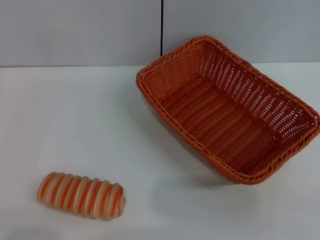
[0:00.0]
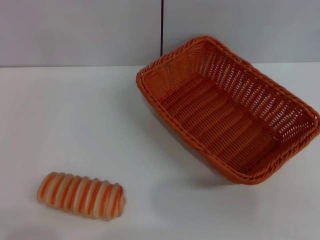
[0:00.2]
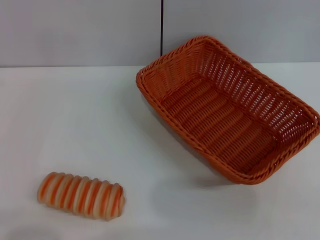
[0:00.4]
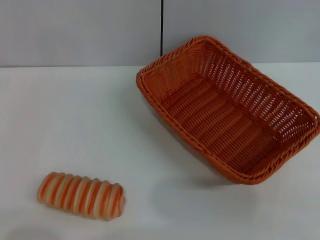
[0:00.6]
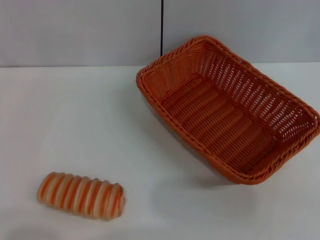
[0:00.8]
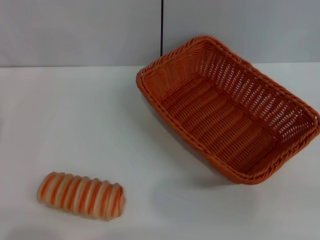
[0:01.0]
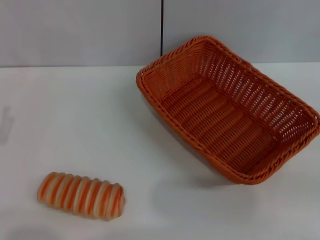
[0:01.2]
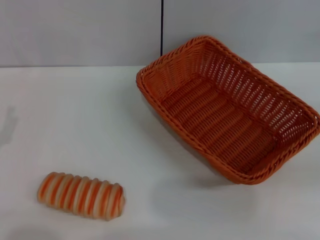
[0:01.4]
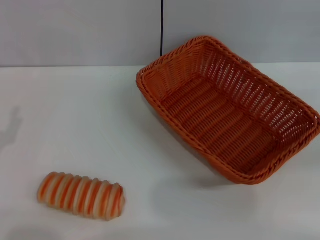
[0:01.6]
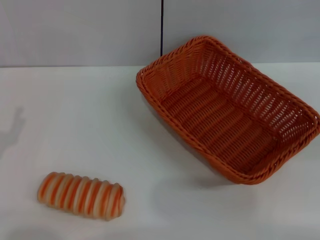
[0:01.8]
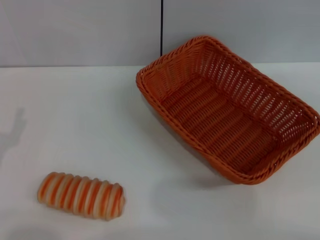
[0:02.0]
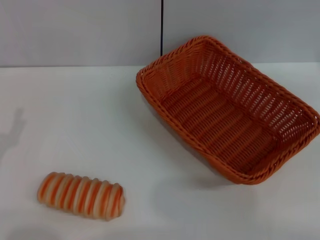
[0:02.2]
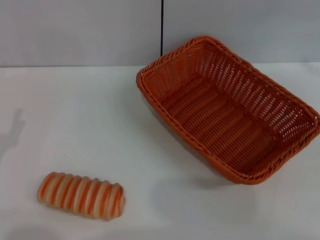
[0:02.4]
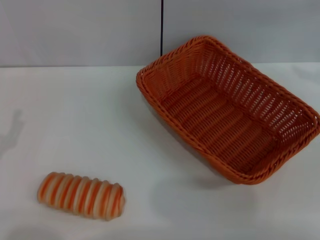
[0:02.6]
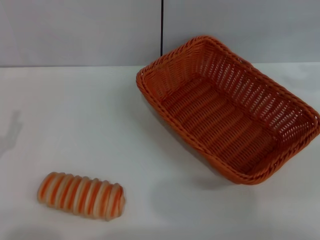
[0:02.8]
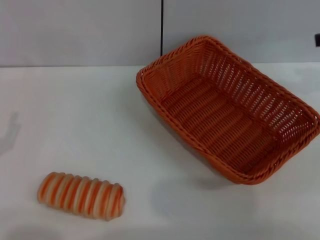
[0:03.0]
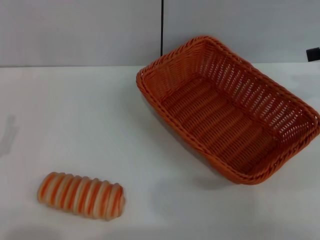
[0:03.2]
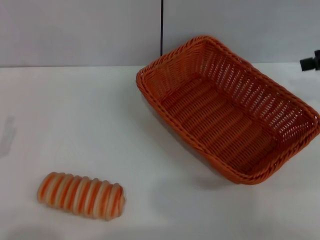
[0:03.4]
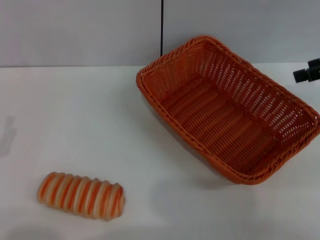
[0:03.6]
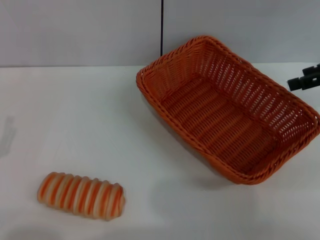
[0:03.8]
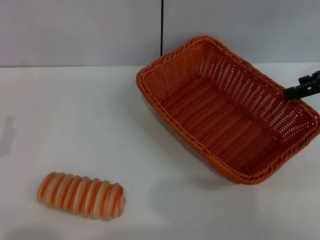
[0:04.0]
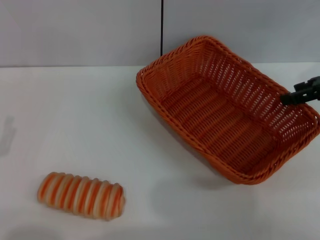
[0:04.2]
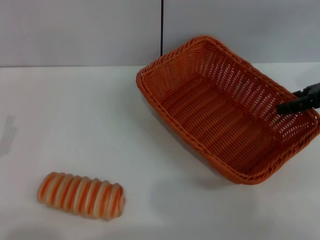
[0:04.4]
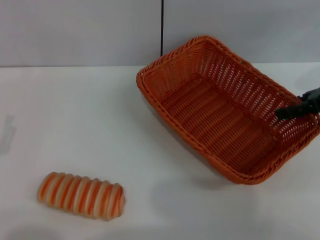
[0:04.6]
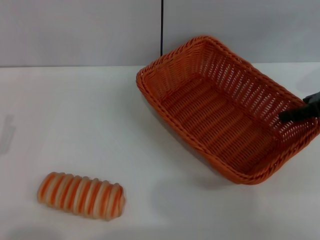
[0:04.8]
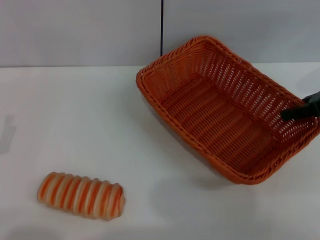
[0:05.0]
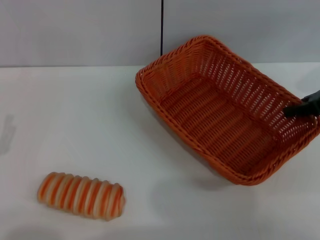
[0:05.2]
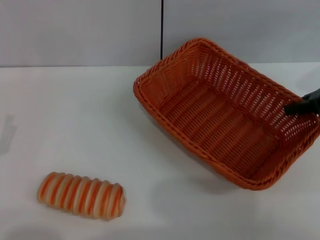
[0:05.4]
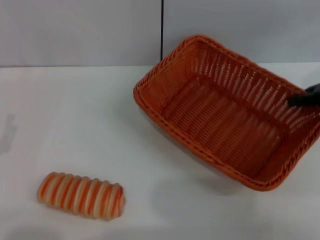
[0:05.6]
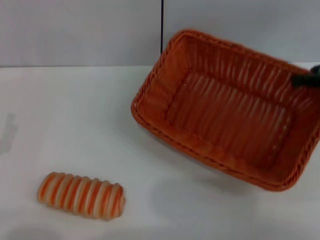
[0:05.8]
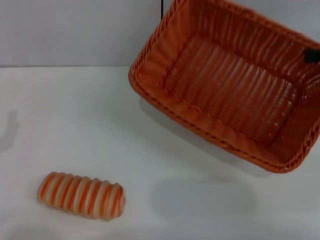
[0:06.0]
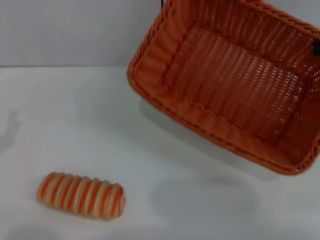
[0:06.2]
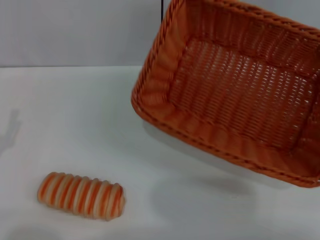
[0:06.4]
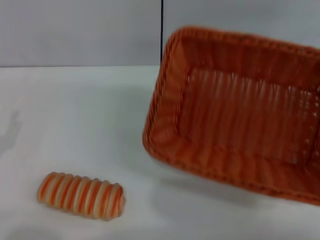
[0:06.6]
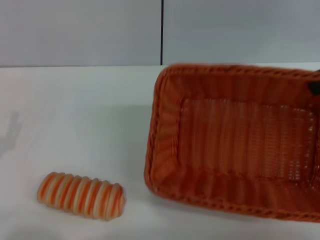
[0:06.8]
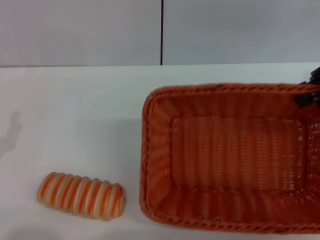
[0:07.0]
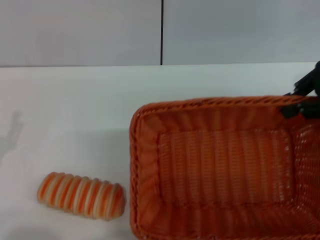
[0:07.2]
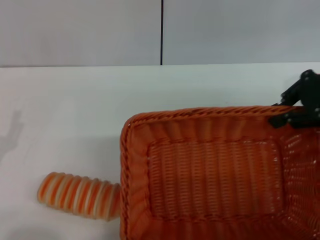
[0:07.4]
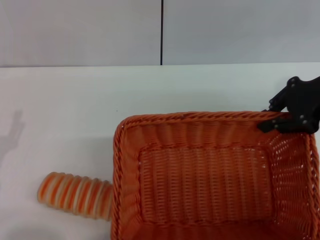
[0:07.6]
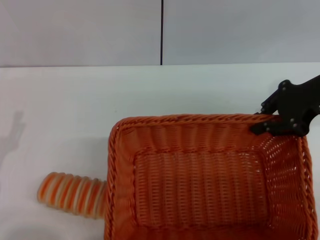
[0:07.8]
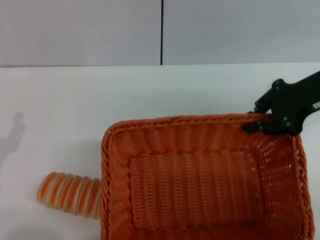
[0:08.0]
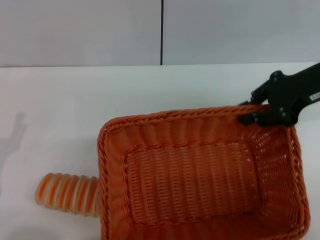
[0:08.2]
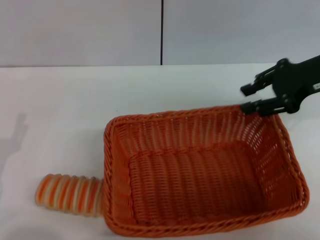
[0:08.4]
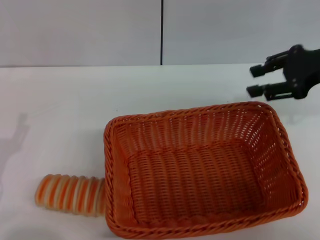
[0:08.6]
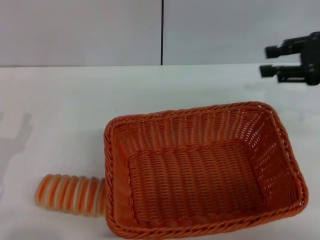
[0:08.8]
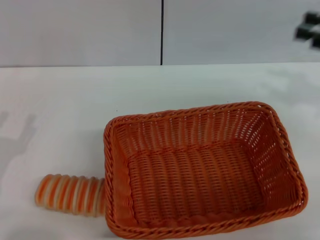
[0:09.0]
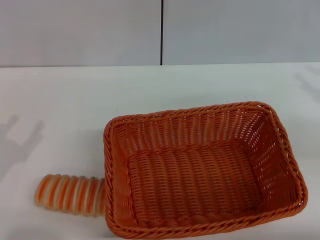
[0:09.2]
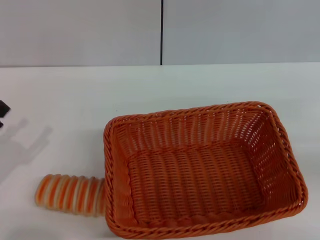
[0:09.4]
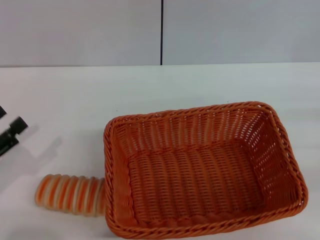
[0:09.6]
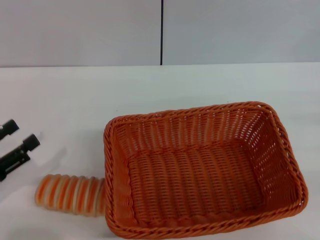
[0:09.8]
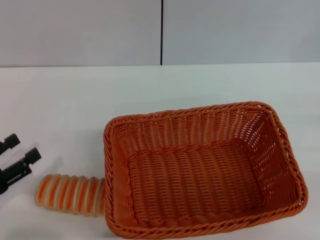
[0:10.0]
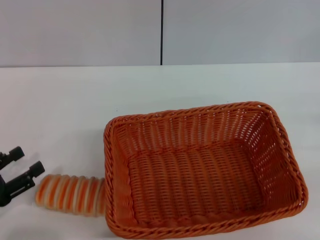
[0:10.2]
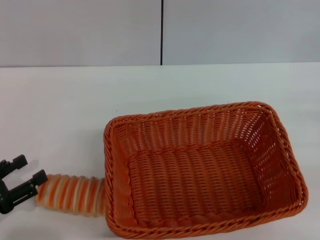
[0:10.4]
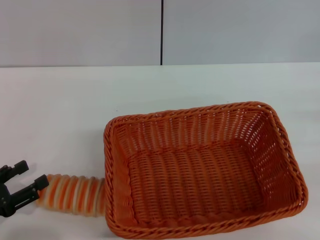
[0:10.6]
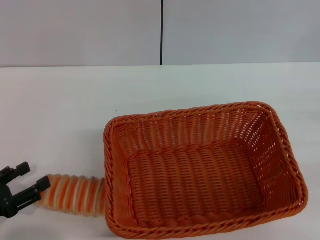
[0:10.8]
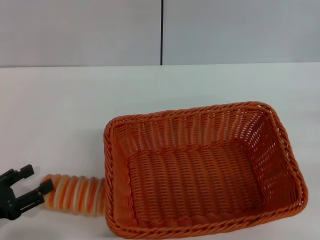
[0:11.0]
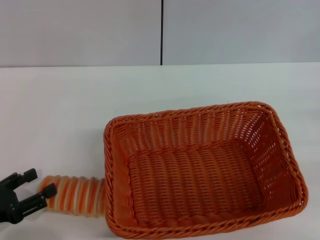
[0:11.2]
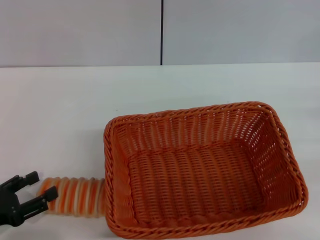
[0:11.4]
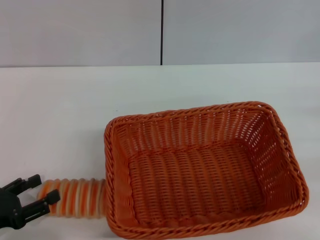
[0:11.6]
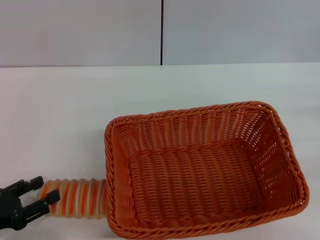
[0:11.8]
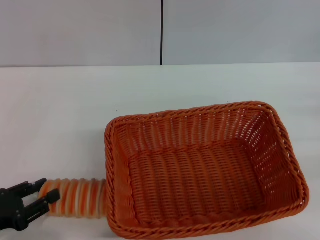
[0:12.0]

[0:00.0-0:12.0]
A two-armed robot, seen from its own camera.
Step, 0:00.0 to 0:06.4: Pick up the light basket with the right gripper.
Step, 0:06.6 to 0:08.6: Place the light basket in the center of view with the right gripper.
0:01.6 to 0:03.0: The right gripper shifts roughly 15 cm forward and to the left.
0:03.0 to 0:04.4: The right gripper shifts some 10 cm downward.
0:04.4 to 0:06.0: The right gripper goes approximately 5 cm upward, and closes.
0:06.0 to 0:07.6: The right gripper goes some 10 cm to the left.
0:07.6 to 0:09.0: The right gripper shifts some 10 cm to the right, and opens up.
0:09.0 to 0:10.4: The right gripper goes about 15 cm downward, backward and to the right.
0:10.4 to 0:12.0: There are only small adjustments of the grippers.

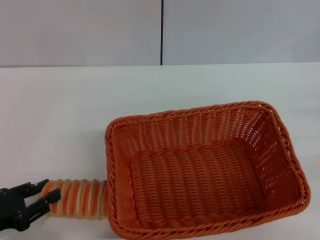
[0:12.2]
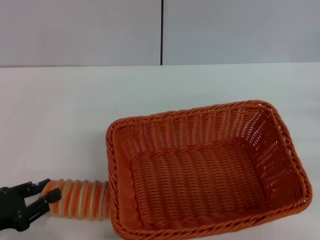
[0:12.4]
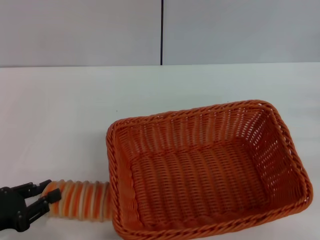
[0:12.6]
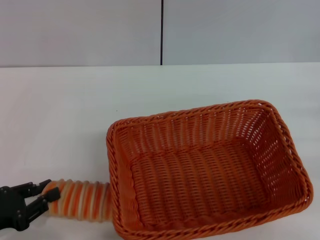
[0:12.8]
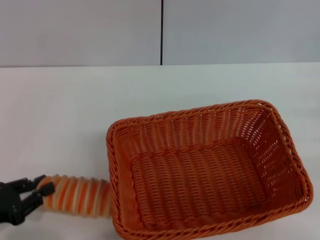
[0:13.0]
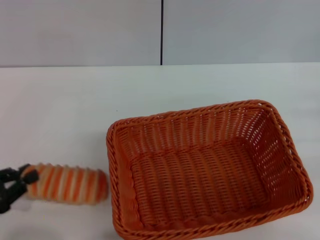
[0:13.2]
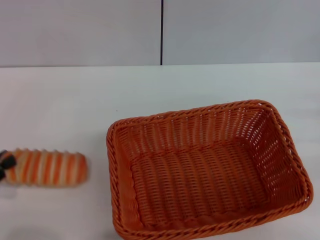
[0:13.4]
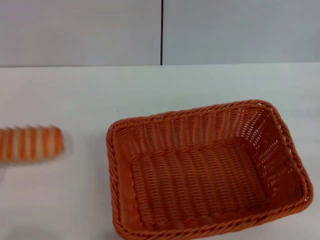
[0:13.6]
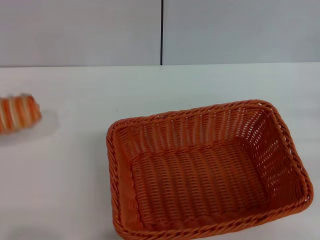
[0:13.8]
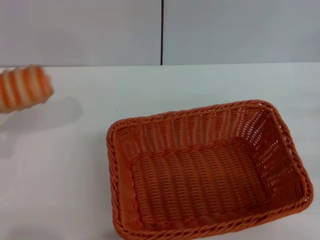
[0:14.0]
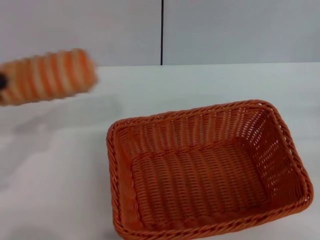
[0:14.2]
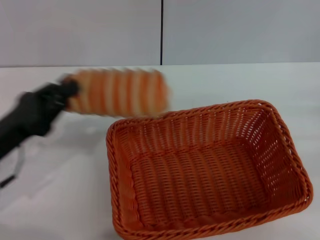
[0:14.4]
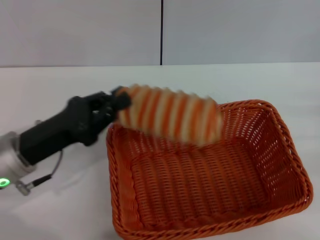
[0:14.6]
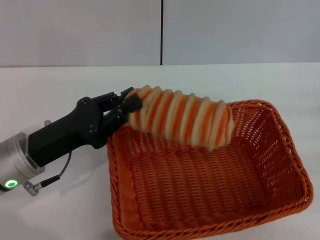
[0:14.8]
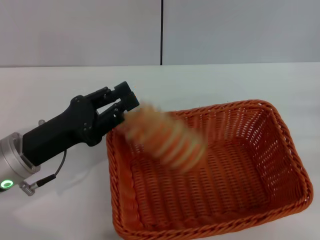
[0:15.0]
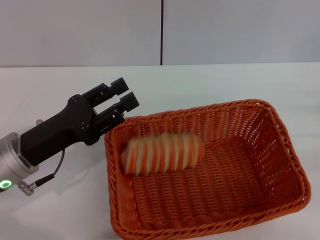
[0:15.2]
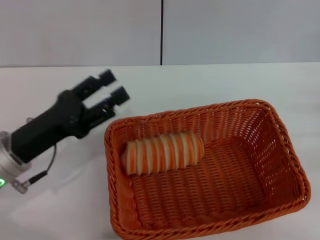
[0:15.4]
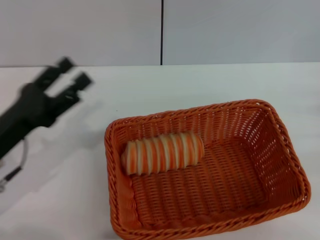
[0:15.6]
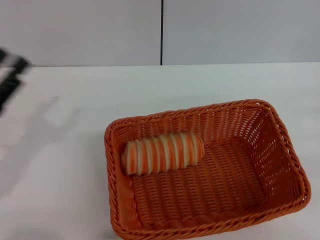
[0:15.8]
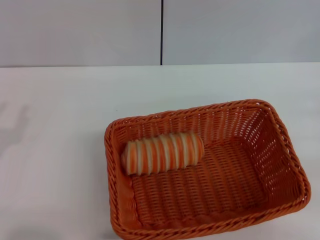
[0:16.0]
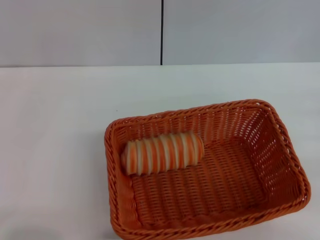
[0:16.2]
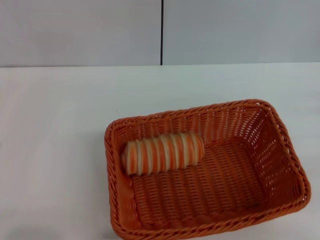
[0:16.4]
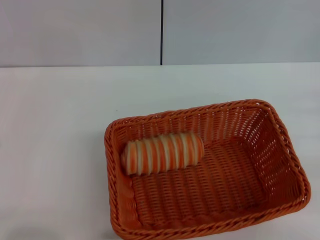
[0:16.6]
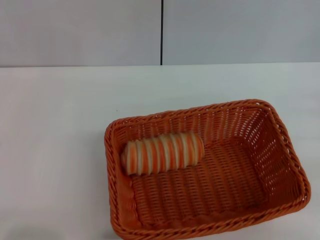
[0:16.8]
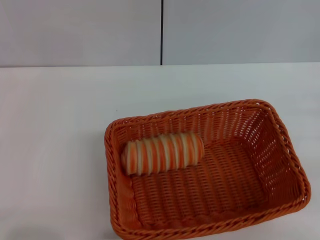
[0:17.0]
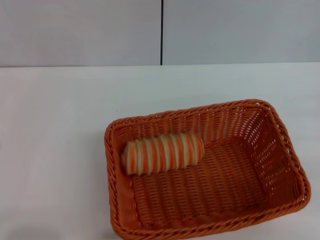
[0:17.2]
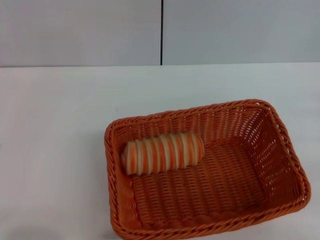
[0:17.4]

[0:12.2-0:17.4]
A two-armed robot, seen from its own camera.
Step, 0:14.2 to 0:15.4: Place the long bread into the light basket with the left gripper.
0:12.2 to 0:14.0: The left gripper shifts roughly 5 cm upward, and closes its fingers.
0:14.0 to 0:15.6: The left gripper shifts roughly 15 cm to the right and forward, and opens up.
0:15.6 to 0:17.4: The left gripper moves backward and to the left, approximately 10 cm, and closes up.

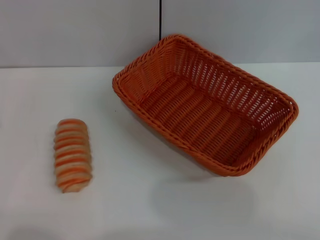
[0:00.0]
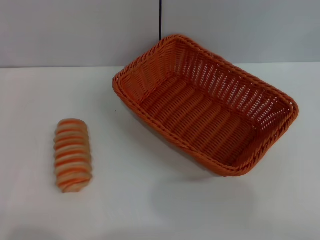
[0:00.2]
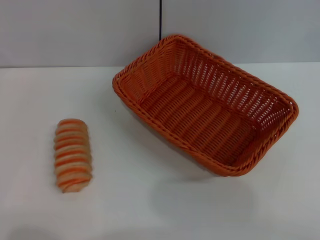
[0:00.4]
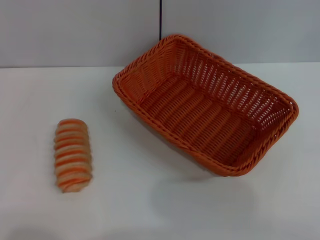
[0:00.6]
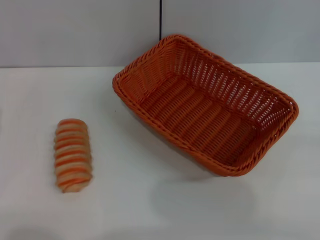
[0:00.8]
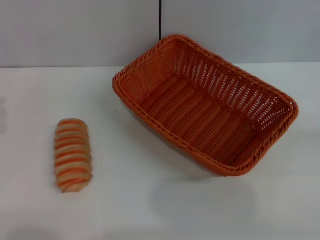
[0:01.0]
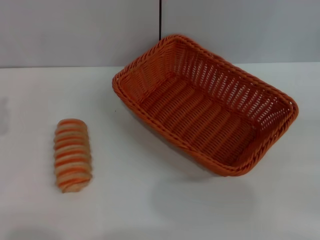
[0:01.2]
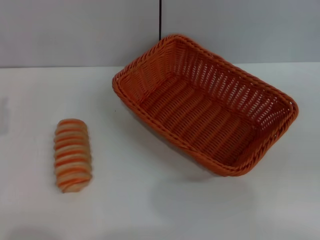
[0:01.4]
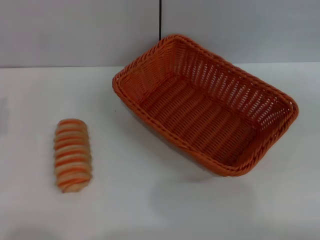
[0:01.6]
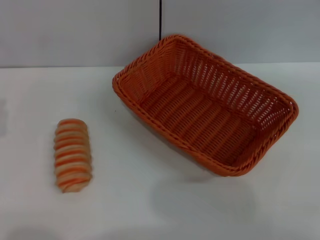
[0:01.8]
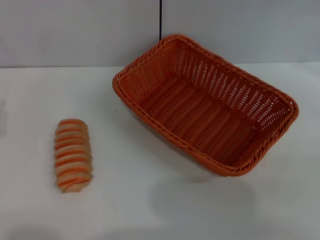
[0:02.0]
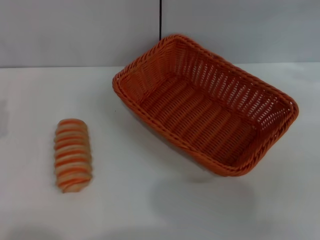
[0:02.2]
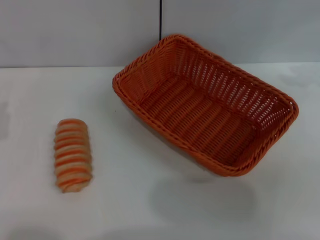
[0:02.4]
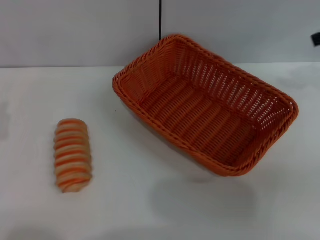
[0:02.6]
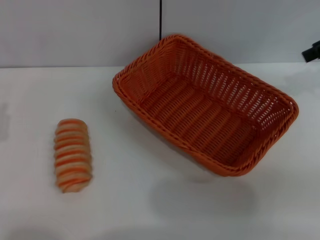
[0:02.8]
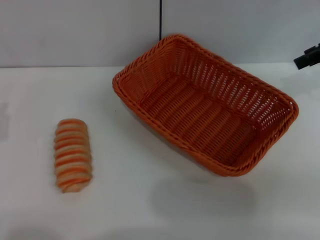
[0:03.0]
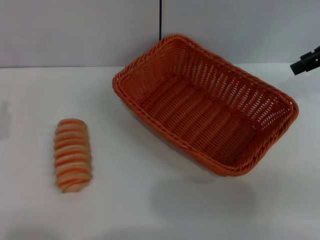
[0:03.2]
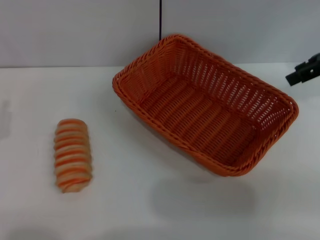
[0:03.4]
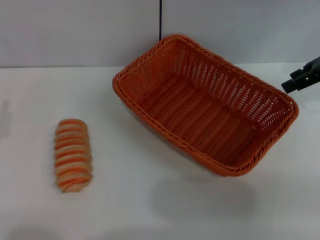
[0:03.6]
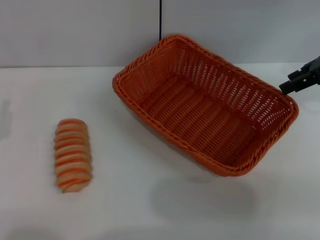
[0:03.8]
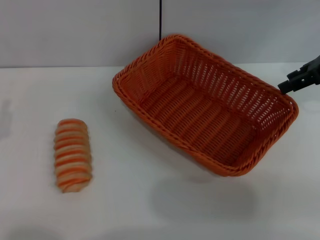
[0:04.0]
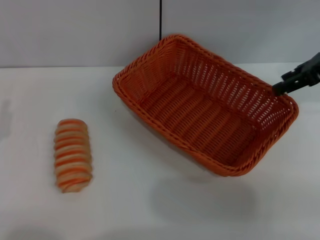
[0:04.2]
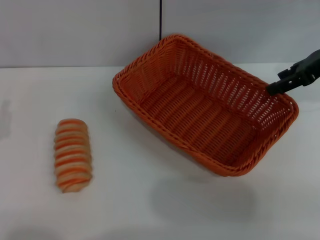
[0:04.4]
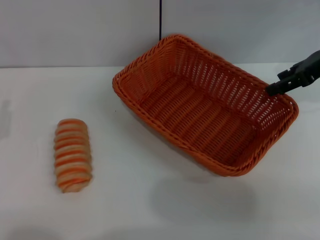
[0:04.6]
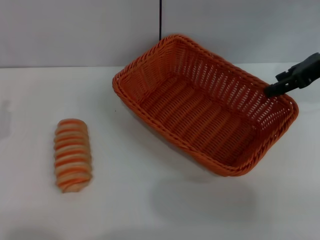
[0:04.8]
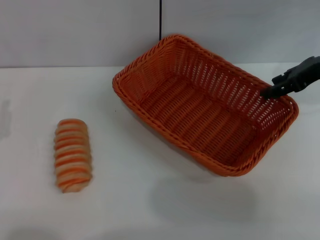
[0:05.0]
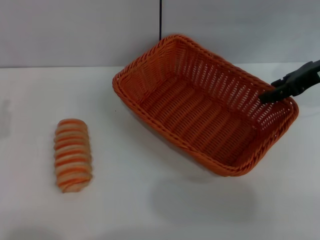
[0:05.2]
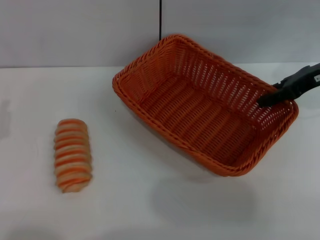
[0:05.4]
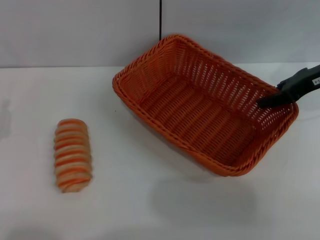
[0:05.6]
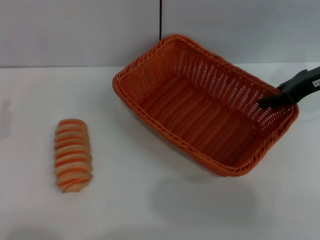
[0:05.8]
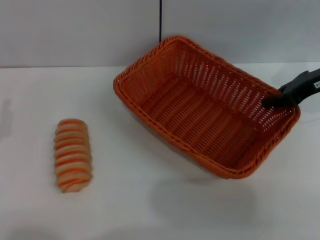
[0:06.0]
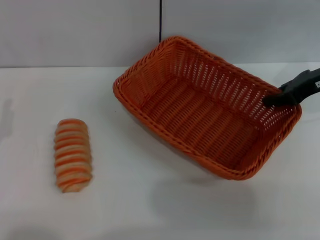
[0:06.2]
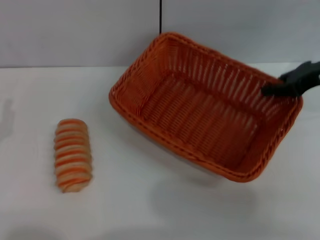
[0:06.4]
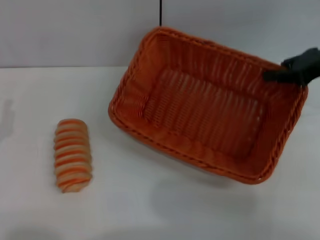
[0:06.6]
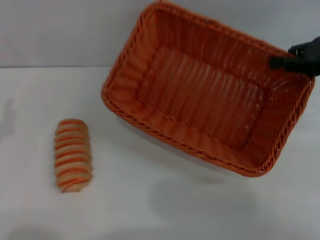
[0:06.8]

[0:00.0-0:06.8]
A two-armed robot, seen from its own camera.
0:01.4 to 0:02.8: The right gripper goes some 25 cm forward and to the left.
0:02.8 to 0:04.0: The right gripper ends up approximately 5 cm from where it was.
0:04.0 to 0:05.4: The right gripper changes place by roughly 5 cm.
0:05.4 to 0:06.8: The right gripper ends up some 5 cm from where it was, and closes.
